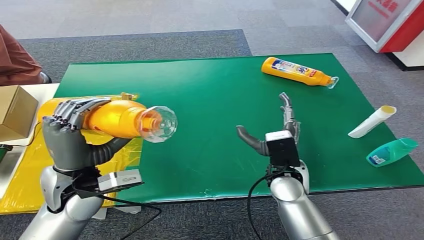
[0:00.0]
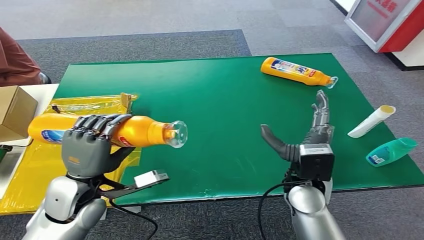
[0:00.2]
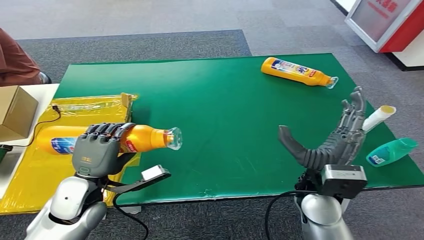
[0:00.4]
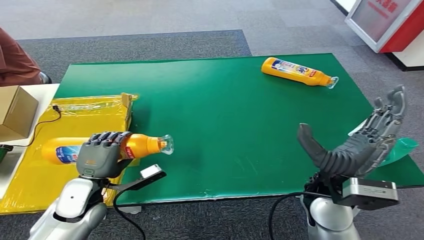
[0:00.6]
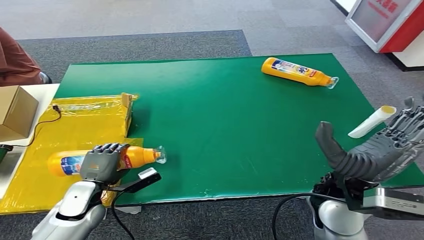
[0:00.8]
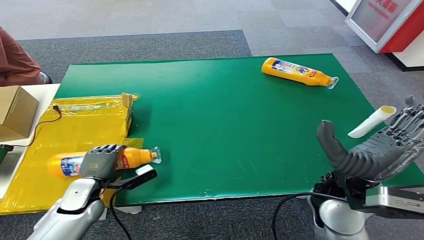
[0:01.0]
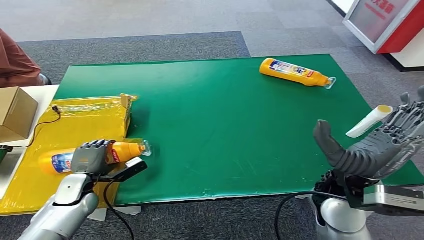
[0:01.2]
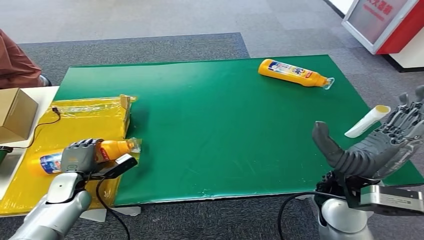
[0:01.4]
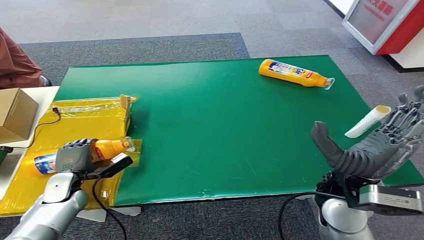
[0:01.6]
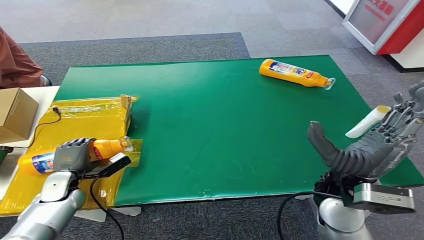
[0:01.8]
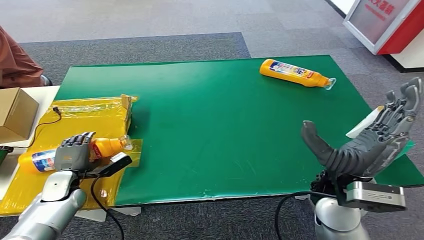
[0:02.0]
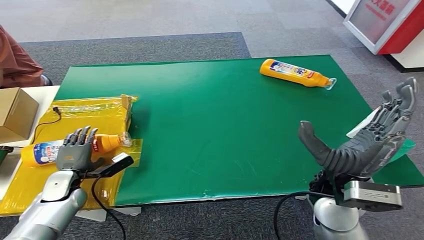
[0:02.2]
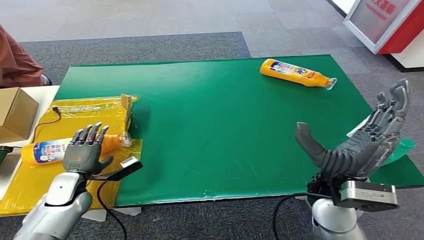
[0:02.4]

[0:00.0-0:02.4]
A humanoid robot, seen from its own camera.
Step, 0:00.0 to 0:02.4: Turn the bottle to the front side.
0:01.2 to 0:02.4: The hands move only a little.
